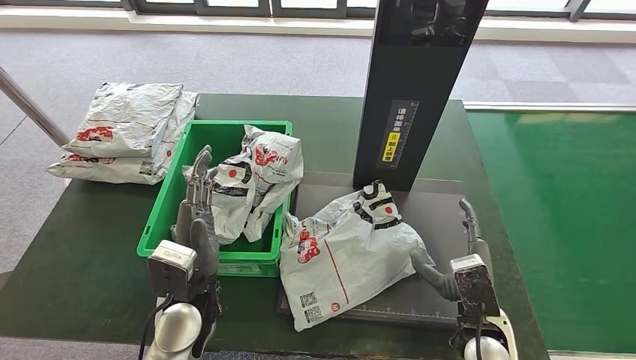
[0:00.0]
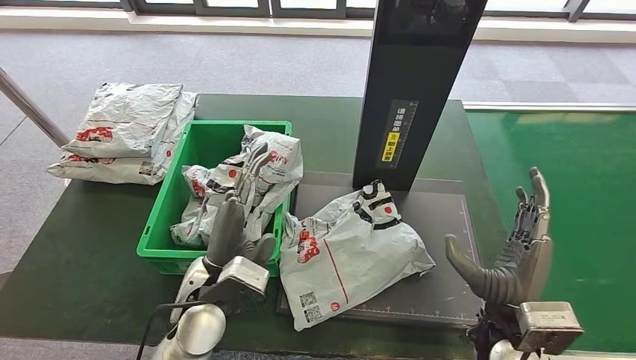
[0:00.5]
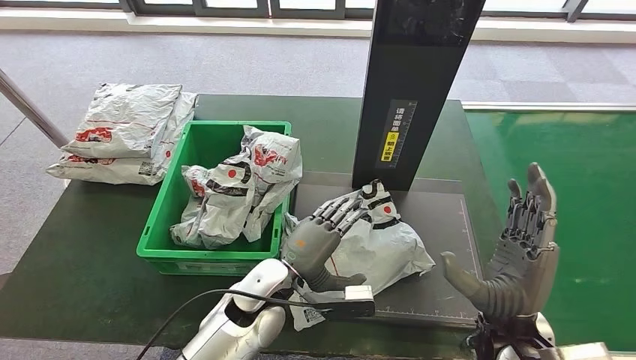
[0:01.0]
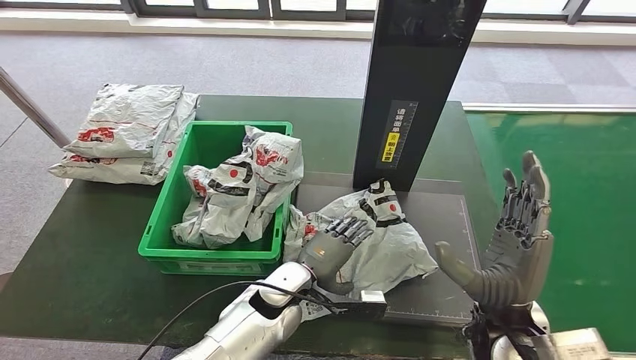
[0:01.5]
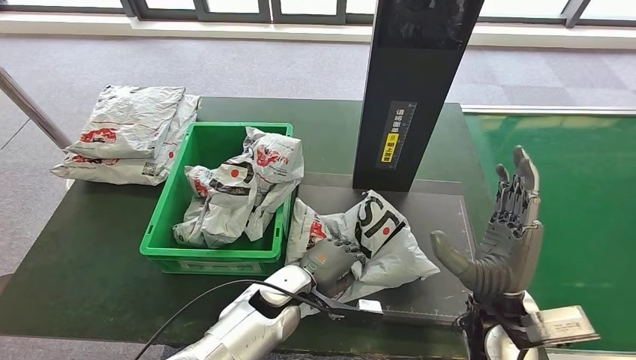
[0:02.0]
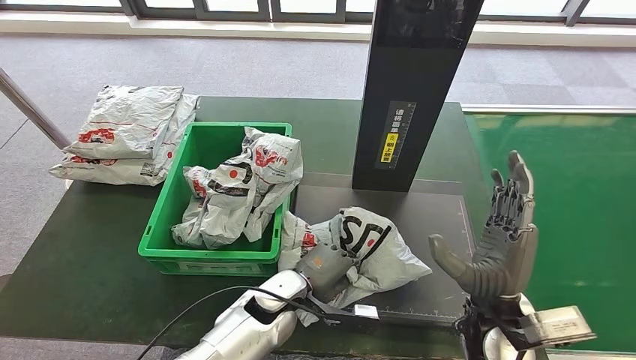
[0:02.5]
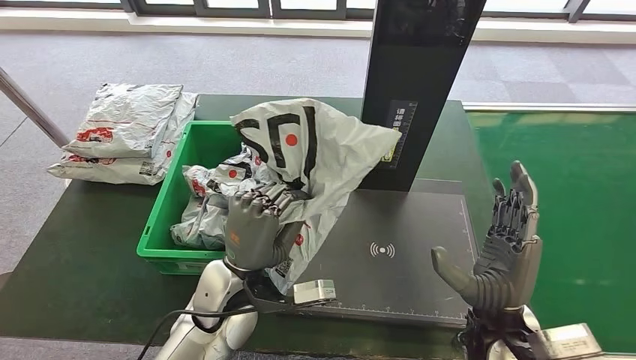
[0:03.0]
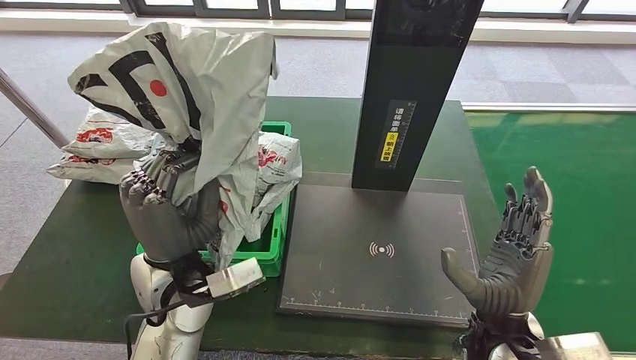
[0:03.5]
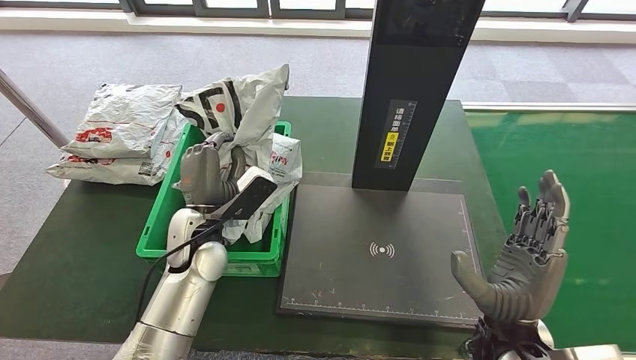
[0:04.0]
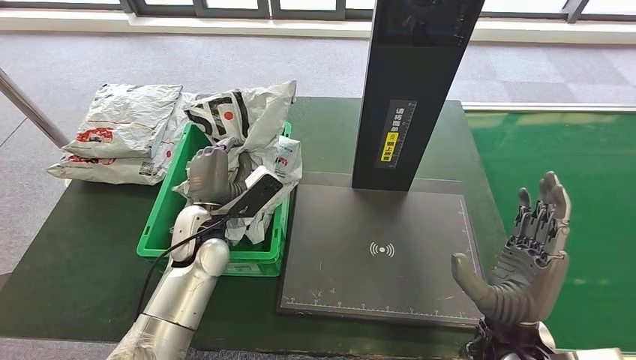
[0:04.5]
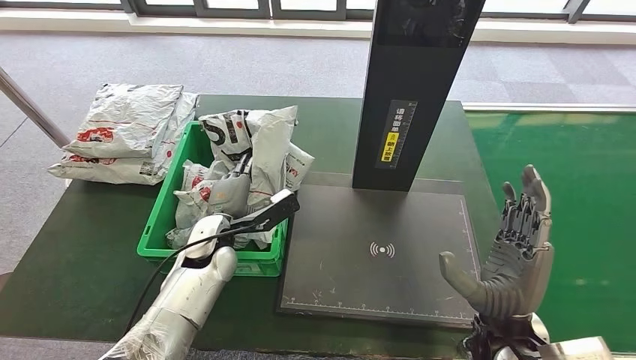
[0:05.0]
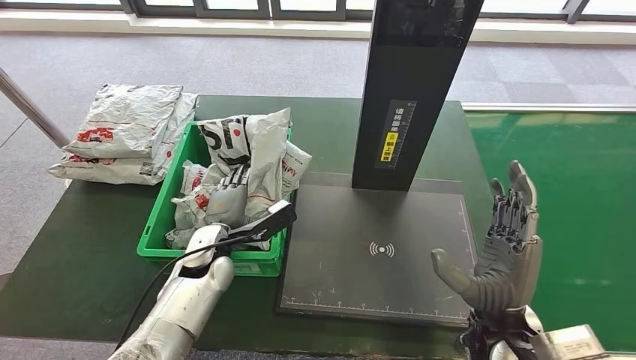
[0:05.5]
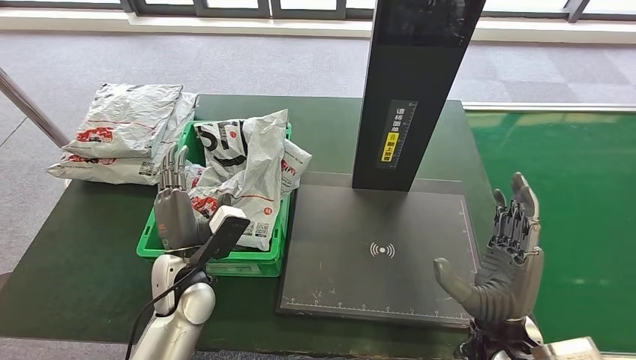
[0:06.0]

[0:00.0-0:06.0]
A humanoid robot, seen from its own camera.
Step, 0:01.0 to 0:02.5: Pick up the parcel from the inbound machine.
Step, 0:03.0 to 0:06.0: Place the parcel into the delivery box.
0:04.0 to 0:06.0: The left hand goes some 5 cm backward.
